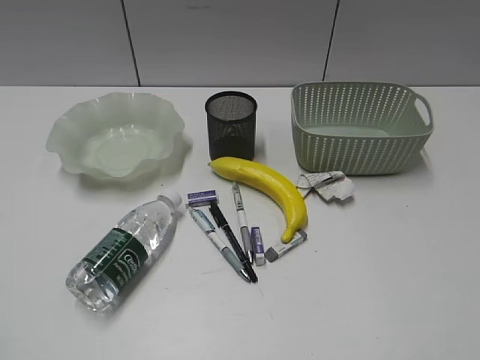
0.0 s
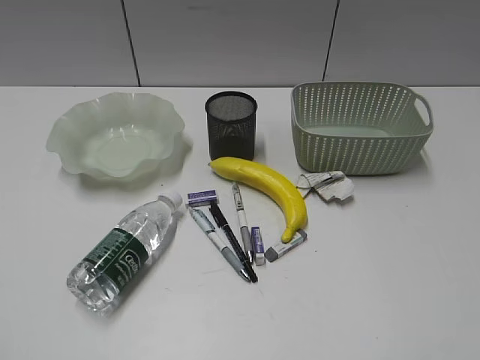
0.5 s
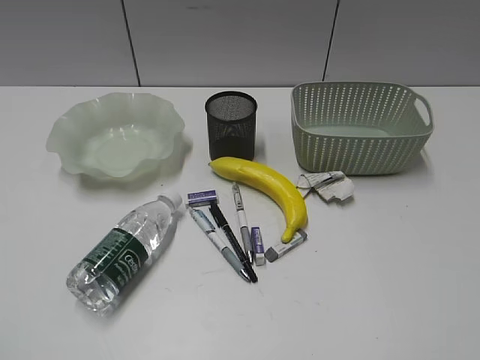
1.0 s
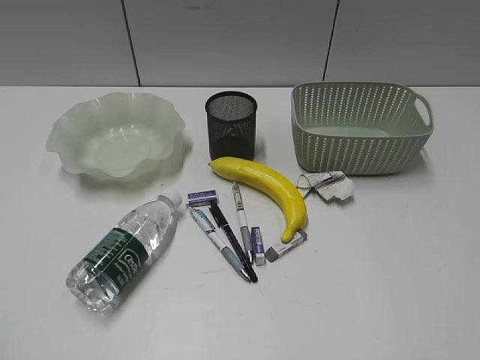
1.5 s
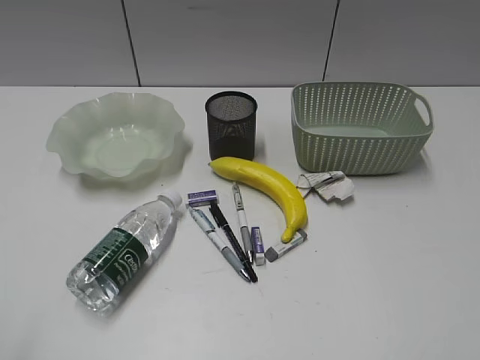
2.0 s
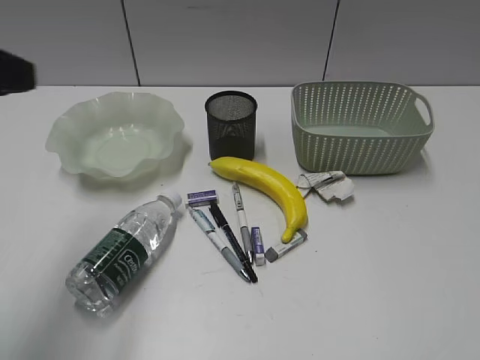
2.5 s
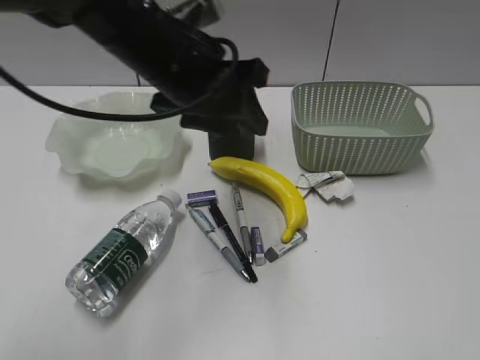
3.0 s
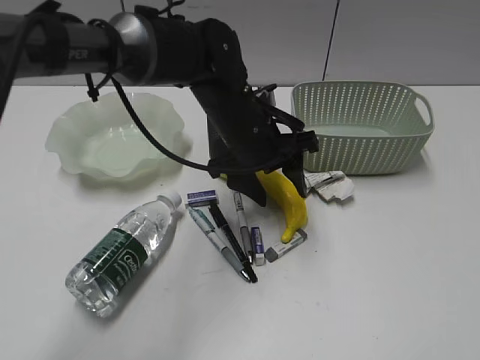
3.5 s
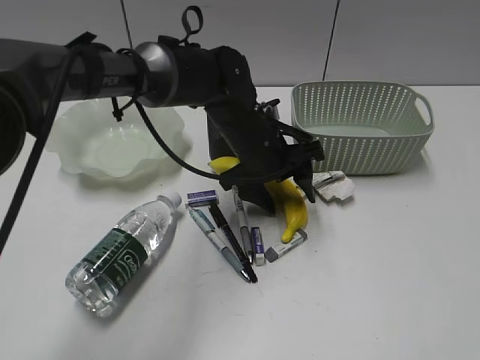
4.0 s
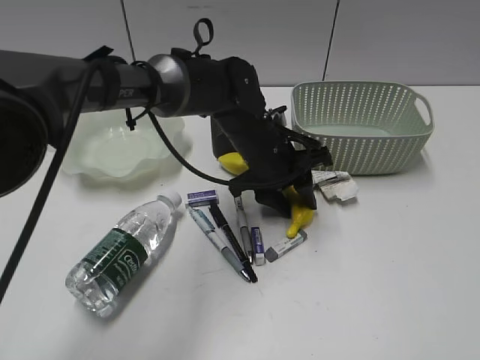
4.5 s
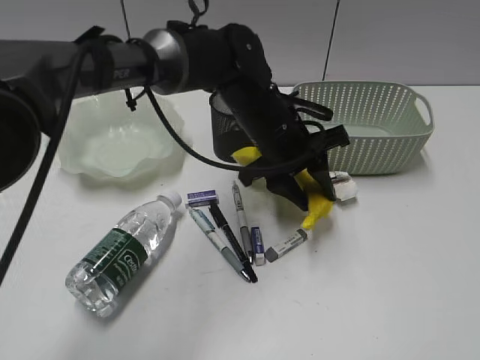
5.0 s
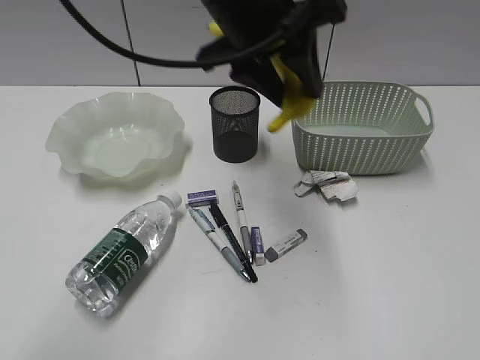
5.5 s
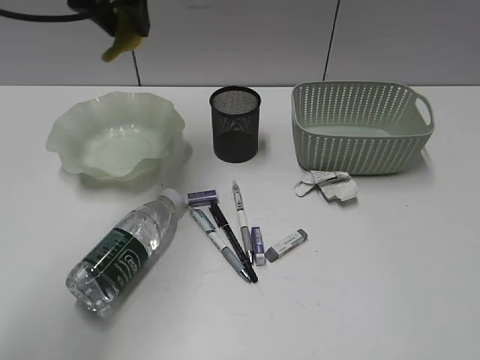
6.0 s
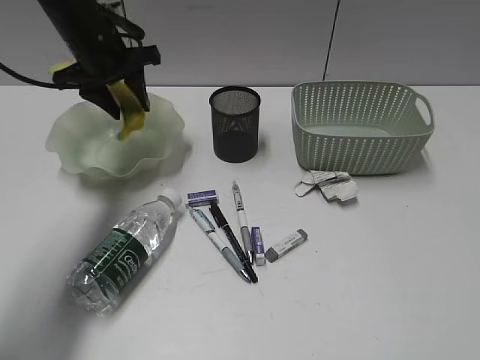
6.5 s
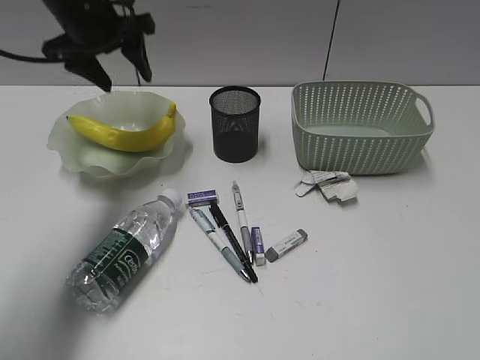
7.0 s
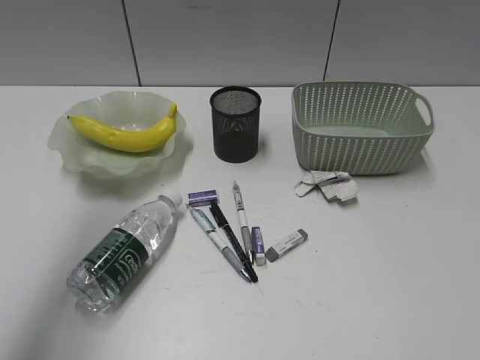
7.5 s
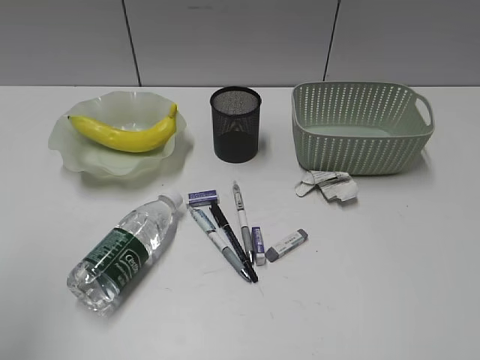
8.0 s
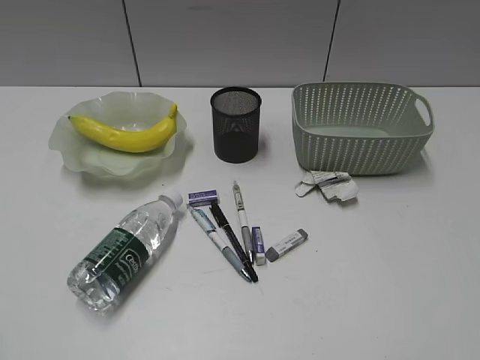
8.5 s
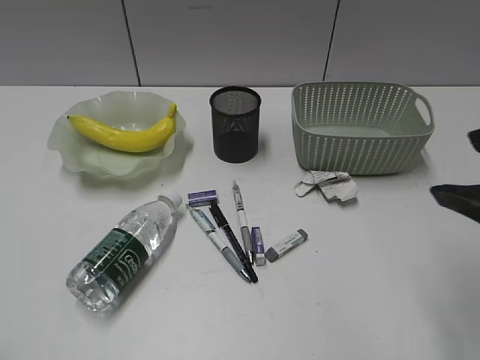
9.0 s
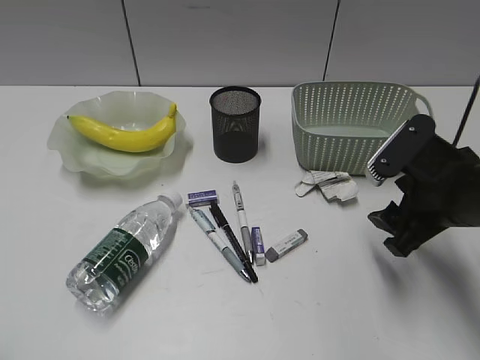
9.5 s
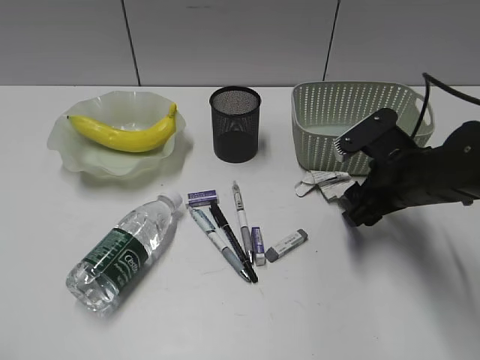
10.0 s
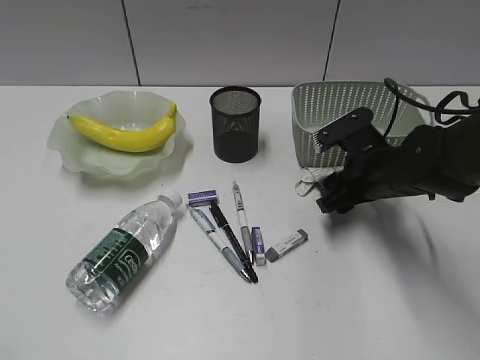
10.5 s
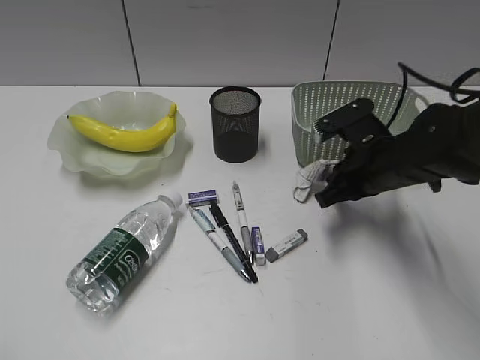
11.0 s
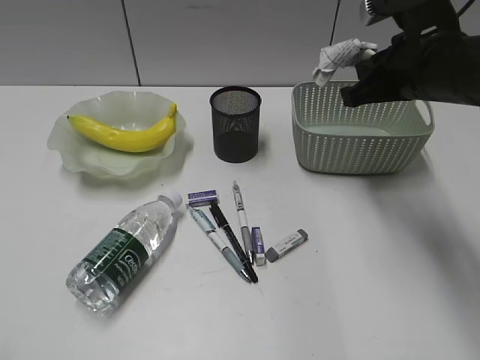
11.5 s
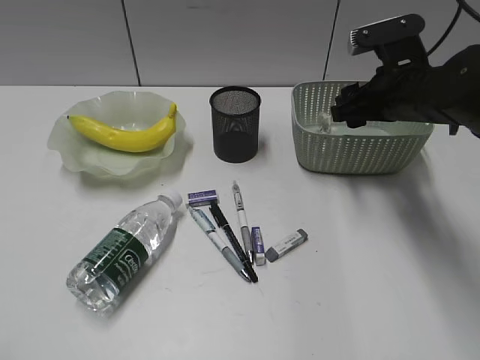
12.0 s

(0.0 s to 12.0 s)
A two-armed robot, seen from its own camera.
Step, 2.0 s - 4.0 s: Grasp the banana with left gripper.
Step, 4.5 s - 6.5 s: Place the banana in the plate with left gripper.
Step, 7.0 s - 10.5 s: Grasp the waste paper with right gripper.
Step, 11.0 s - 12.0 s: Place the waste paper in the basket with right gripper.
2.0 s - 4.0 s: The left gripper is displaced forward, to the right and downward by about 50 cm, and opens up.
4.0 s - 6.0 s: The left gripper goes approximately 25 cm upward and to the left, and closes its fingers.
6.0 s - 8.0 s: The left gripper heads backward and to the left, covering about 35 cm.
8.0 s - 10.0 s: The right gripper is displaced forward and downward by roughly 35 cm, and opens up. The left gripper travels downward and backward by approximately 15 cm.
10.0 s - 12.0 s: The right gripper travels forward and upward by some 10 cm, and closes and opens again.

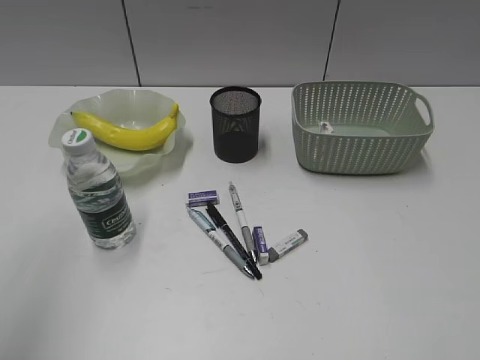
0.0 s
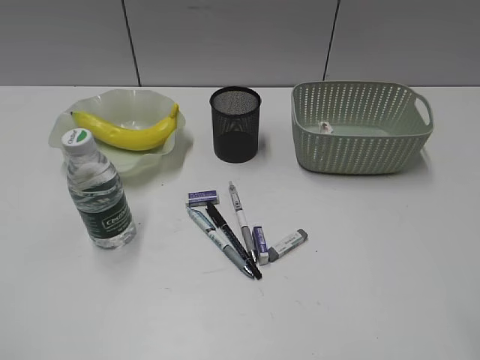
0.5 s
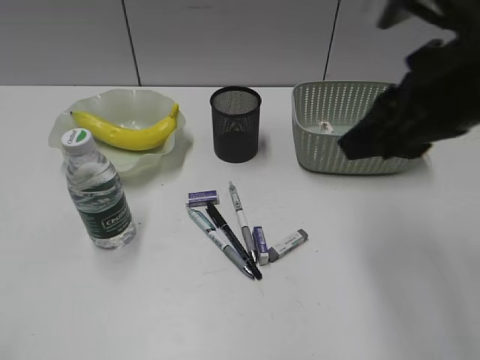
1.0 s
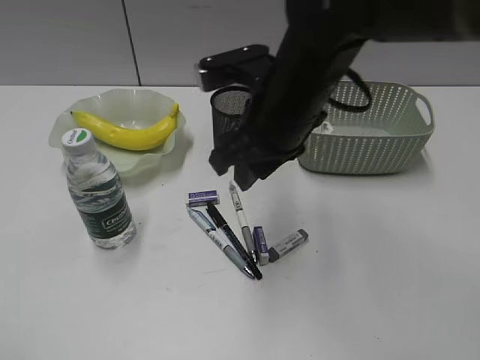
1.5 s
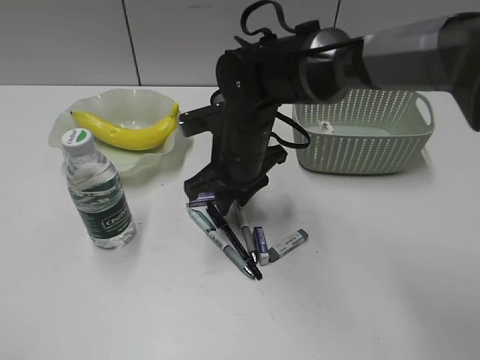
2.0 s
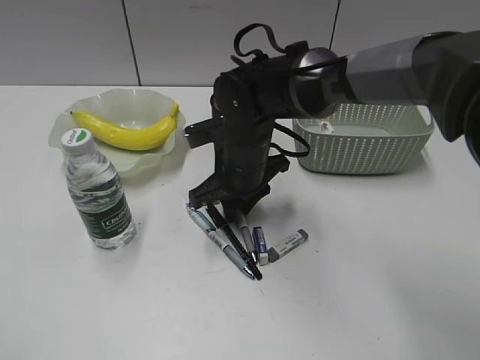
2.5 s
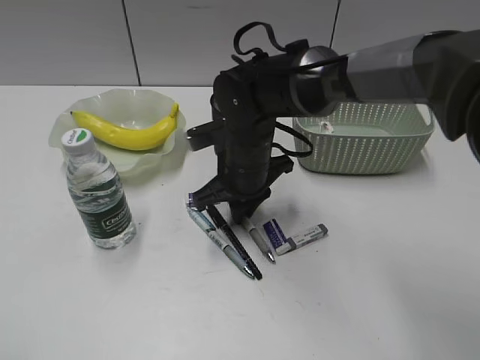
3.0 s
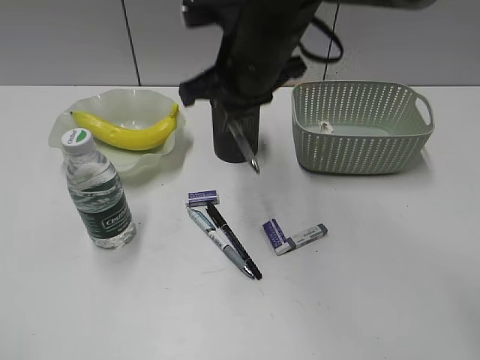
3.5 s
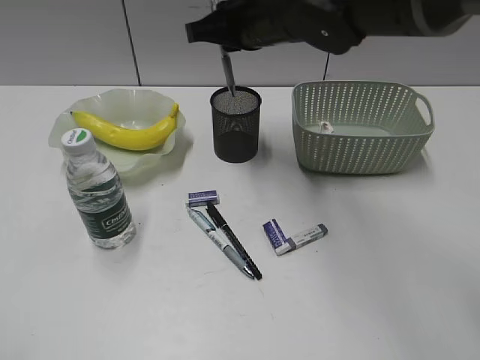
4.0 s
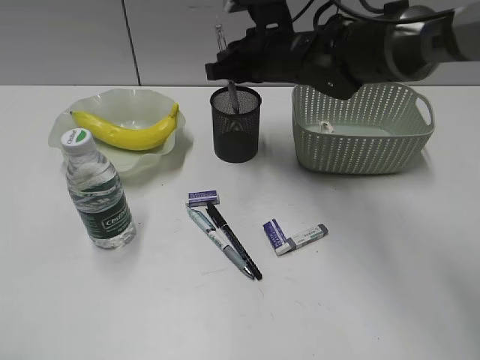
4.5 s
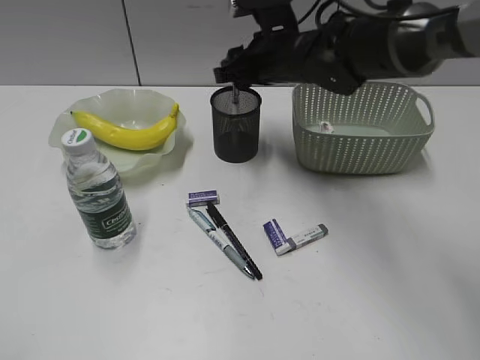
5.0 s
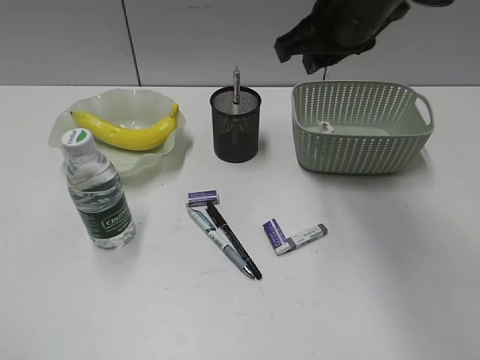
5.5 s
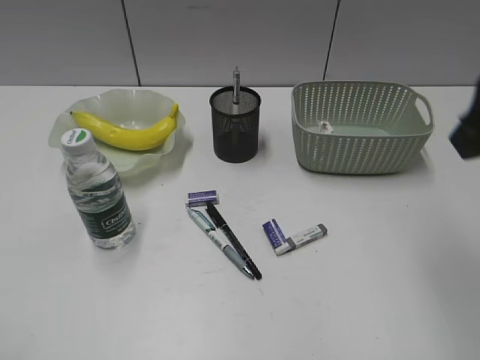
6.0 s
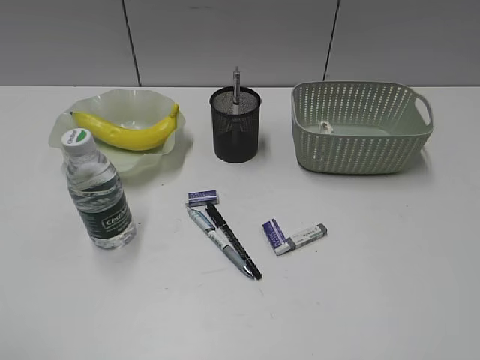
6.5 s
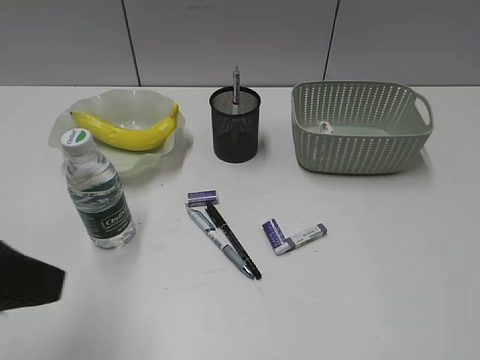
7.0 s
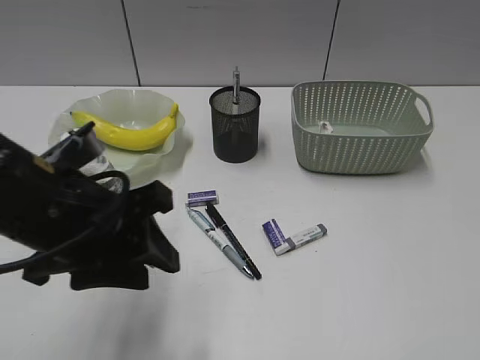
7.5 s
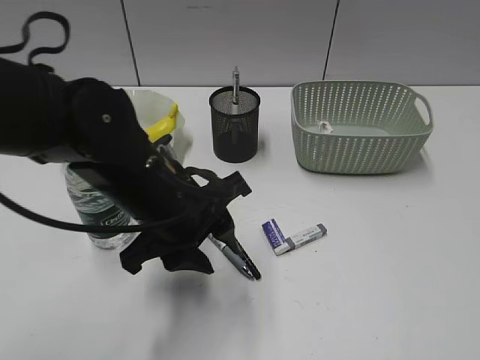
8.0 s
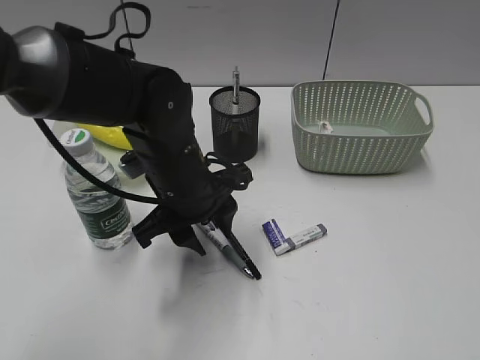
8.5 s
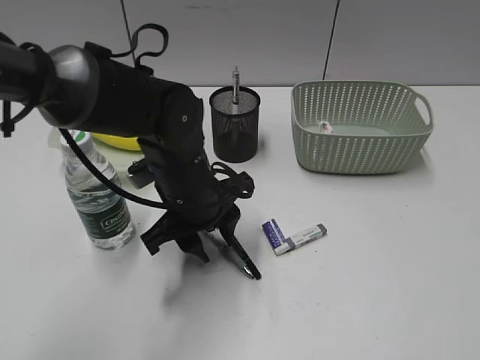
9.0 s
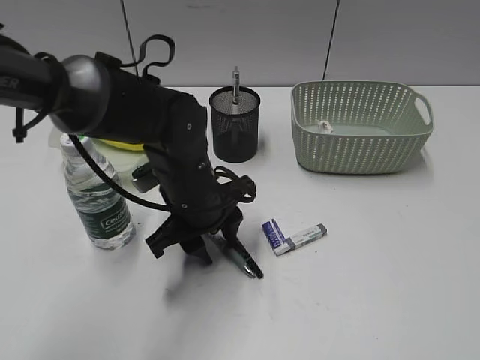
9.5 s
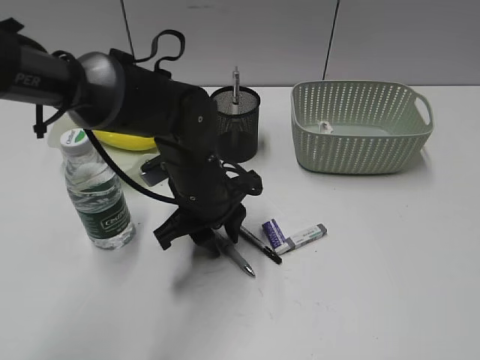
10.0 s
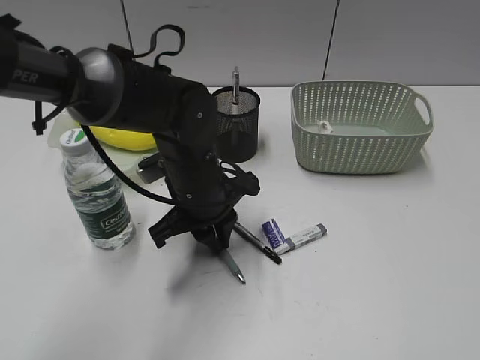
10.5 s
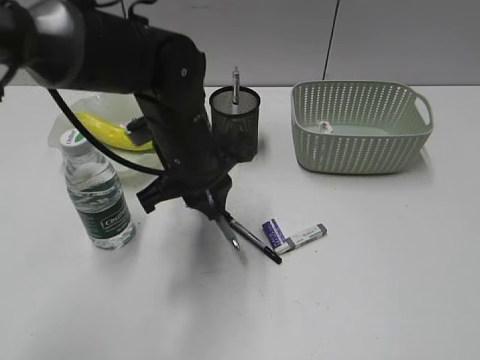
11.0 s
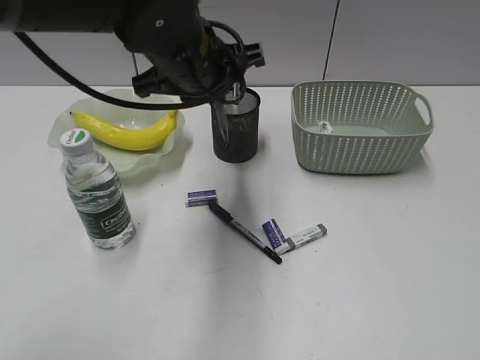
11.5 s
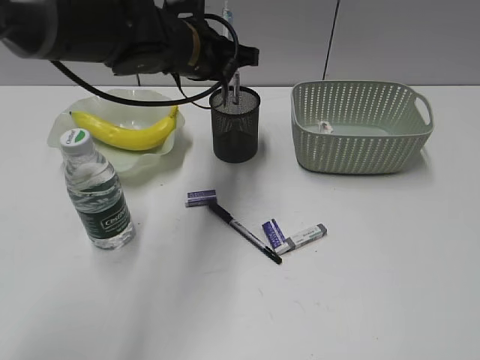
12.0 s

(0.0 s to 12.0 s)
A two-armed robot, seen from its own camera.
Step, 0.0 s - 2.5 s: Grasp the gray pen with right gripper.
Step, 3.0 s - 4.5 s: Place the gray pen in pen holder with right gripper.
Step, 5.0 s - 10.5 s: Grasp the blue pen with left gripper.
0.0 s - 2.0 s: The left gripper shifts roughly 20 cm downward and backward. The right gripper heads forward, to the left and downward, covering some 50 cm, and closes its fingers.
2.0 s - 4.0 s: The right gripper heads upward, covering roughly 15 cm, and closes.
4.0 s - 6.0 s: The right gripper moves backward, to the right and upward, roughly 25 cm, and opens, then closes again.
6.0 s - 8.0 s: The left gripper shifts about 35 cm to the right, forward and downward, while the right gripper goes about 25 cm backward and to the right.
8.0 s - 10.0 s: The left gripper is displaced forward by some 5 cm.
10.0 s - 12.0 s: The left gripper shifts roughly 15 cm upward and forward.

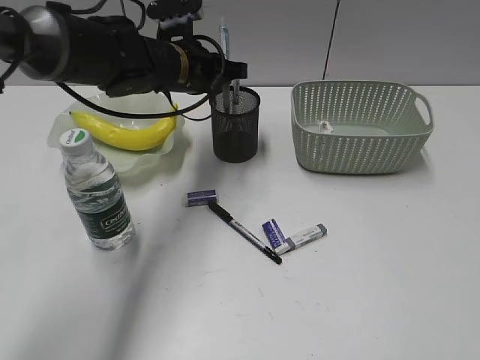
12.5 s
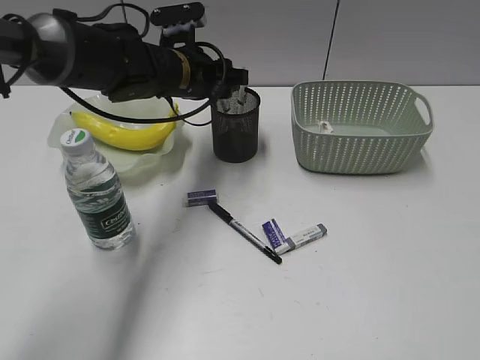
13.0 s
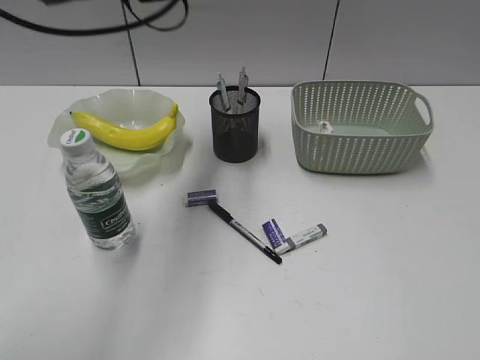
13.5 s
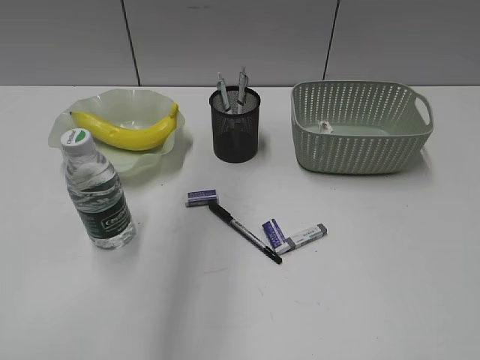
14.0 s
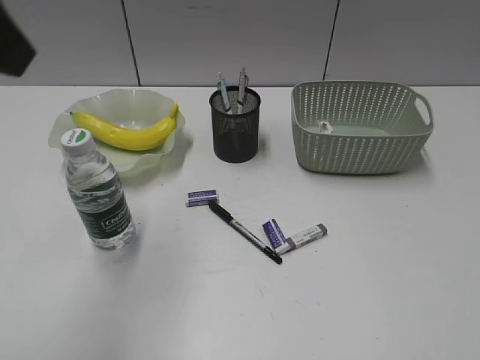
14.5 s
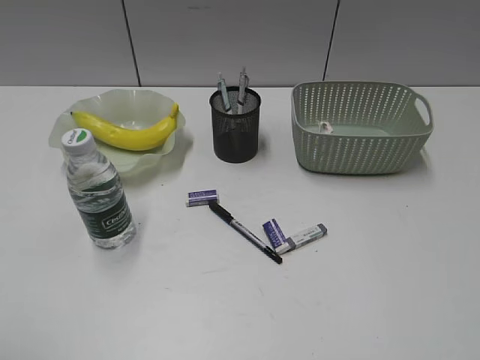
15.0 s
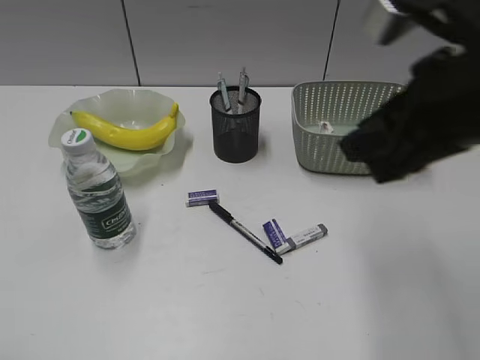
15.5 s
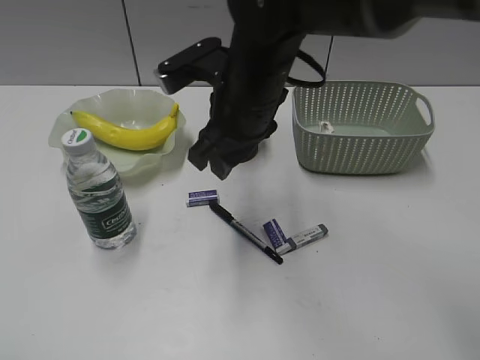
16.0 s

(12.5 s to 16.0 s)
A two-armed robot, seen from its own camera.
12.5 s - 14.5 s: The left gripper heads backward, upward and to the left, covering some 35 cm, and opens its fingers.
14.5 s - 16.0 s: The left gripper goes some 25 cm backward, to the left and downward; the right gripper goes about 40 cm forward and to the left.
